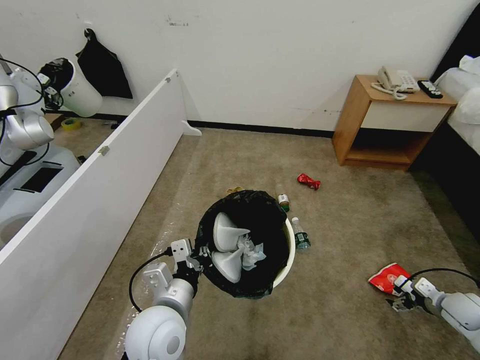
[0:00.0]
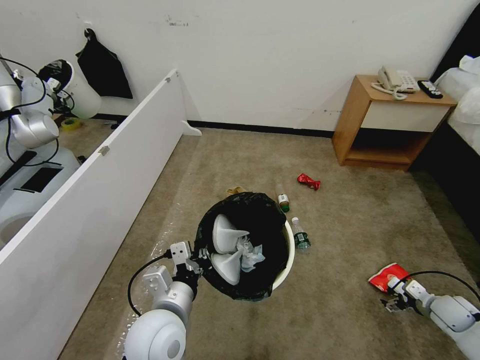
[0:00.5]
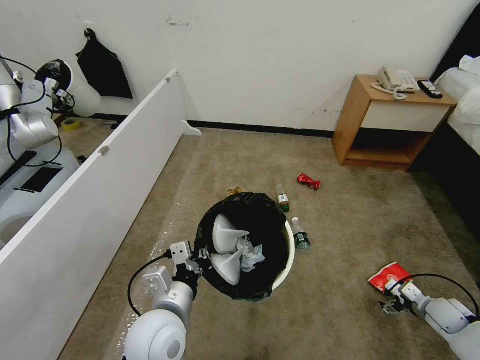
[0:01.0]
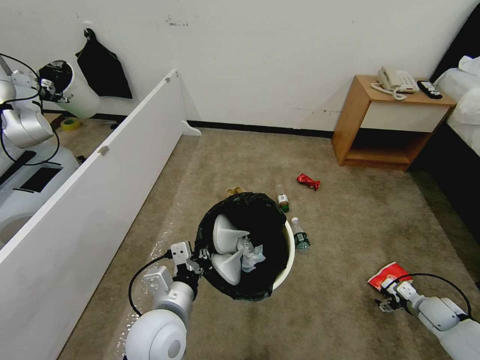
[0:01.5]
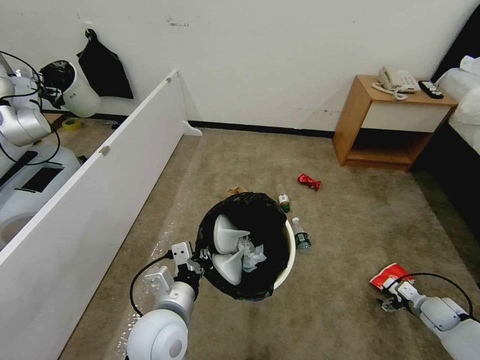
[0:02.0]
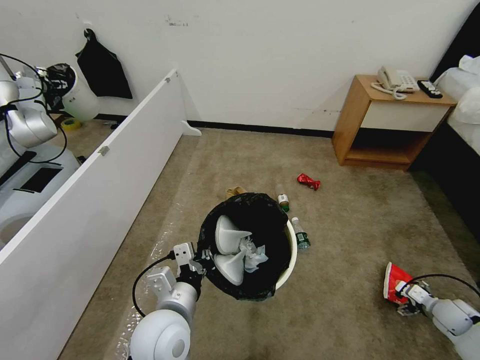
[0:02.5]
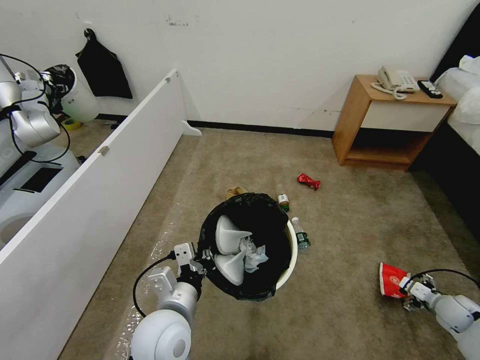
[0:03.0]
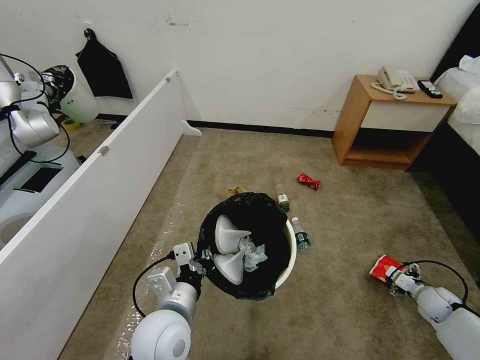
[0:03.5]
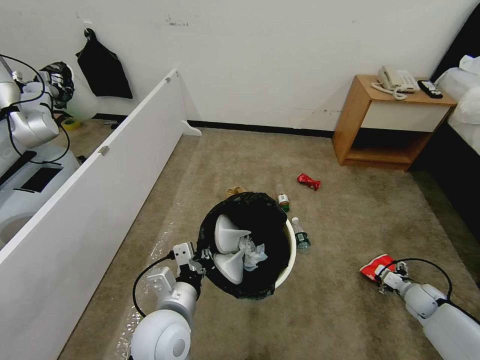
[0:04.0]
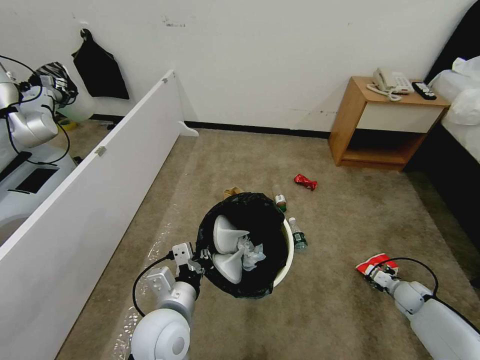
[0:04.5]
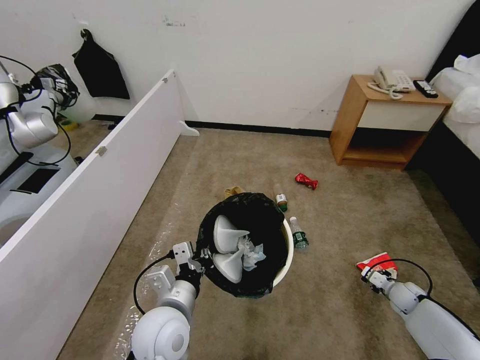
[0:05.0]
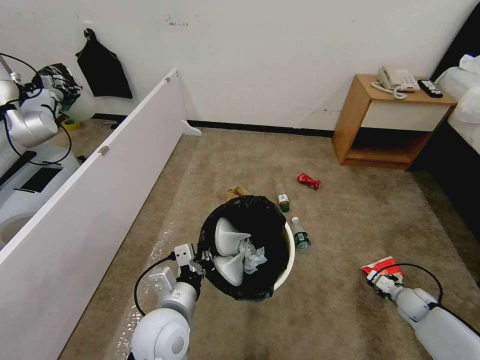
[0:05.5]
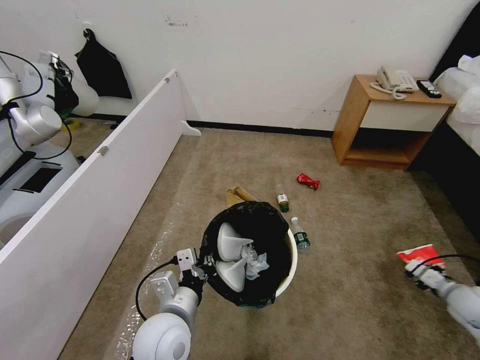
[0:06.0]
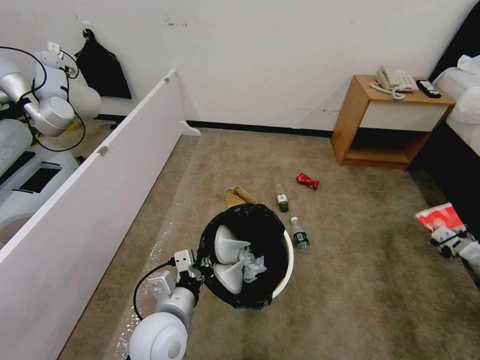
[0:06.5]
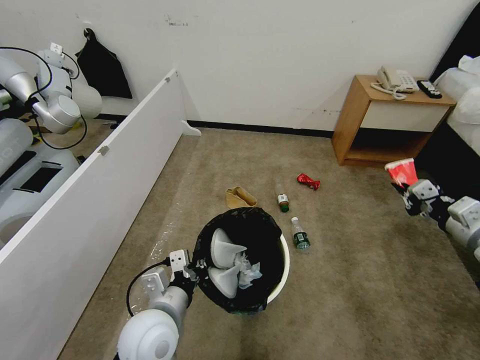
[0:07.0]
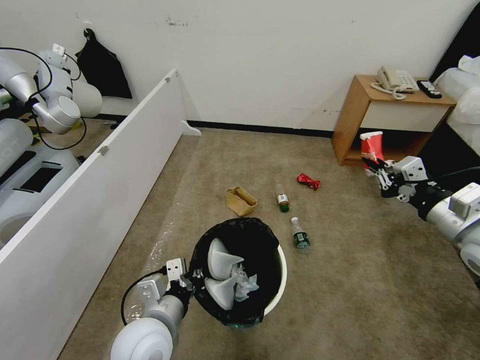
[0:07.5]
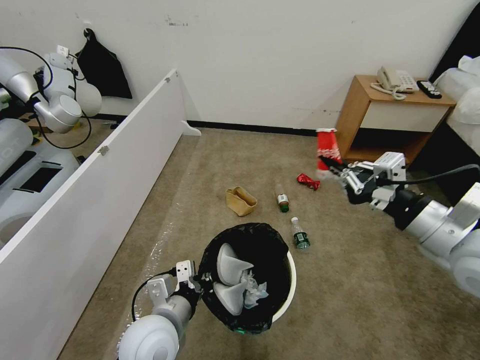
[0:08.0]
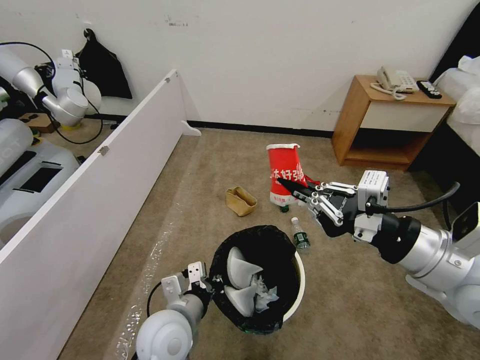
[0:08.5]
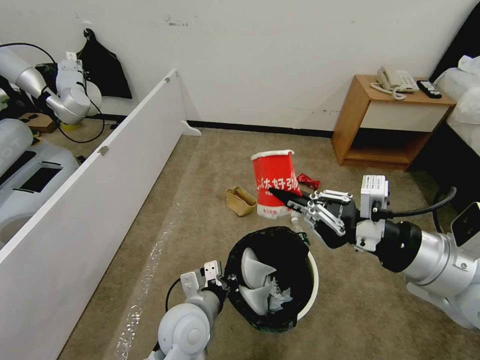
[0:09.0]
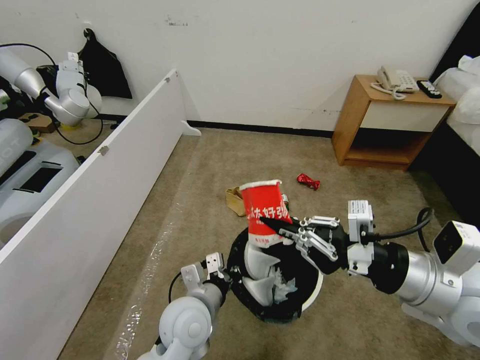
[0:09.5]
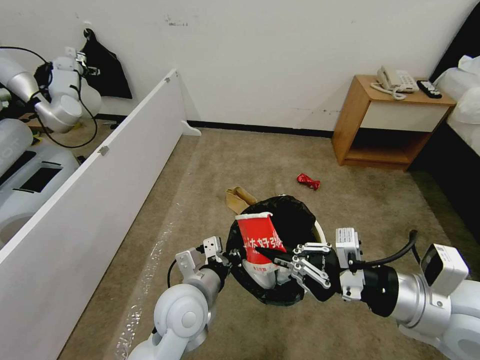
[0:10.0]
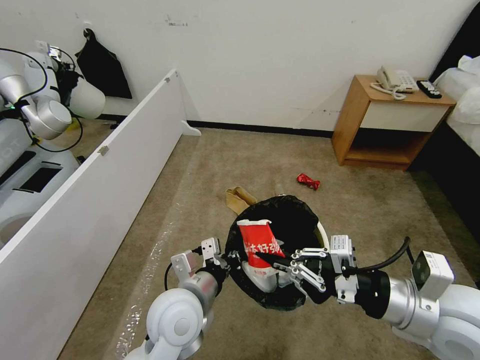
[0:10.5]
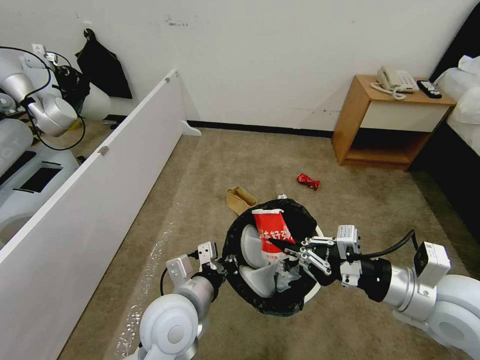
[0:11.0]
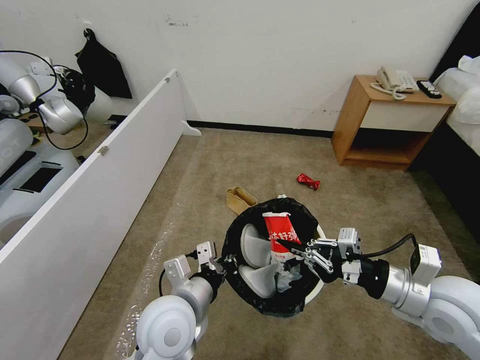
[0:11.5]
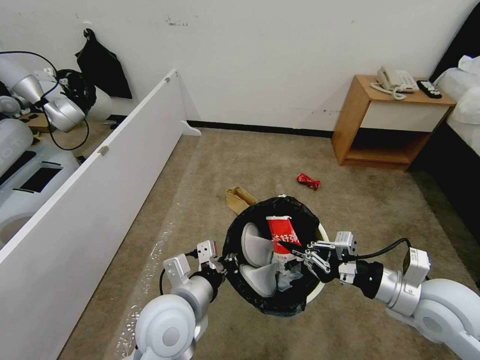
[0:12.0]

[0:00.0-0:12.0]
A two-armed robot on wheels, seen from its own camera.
Task of the whole recording: Pick up the trash bin, then pick up the garbage from the floor and place it into the trash bin.
0:00.0 to 0:02.0: The right gripper goes roughly 5 cm downward.
0:02.0 to 0:04.0: The grippers stay close to where they were, moving slightly.
0:04.0 to 0:06.0: The right gripper goes approximately 10 cm upward, and closes its fingers.
0:06.0 to 0:08.0: The right gripper is displaced upward and to the left by some 40 cm.
0:08.0 to 0:10.0: The left gripper moves to the right and forward, some 5 cm. The right gripper goes about 5 cm backward.
0:10.0 to 0:12.0: The right gripper goes about 10 cm downward.

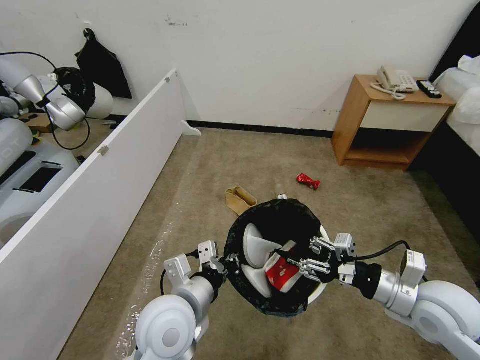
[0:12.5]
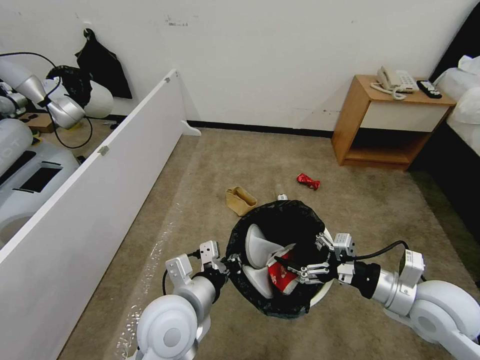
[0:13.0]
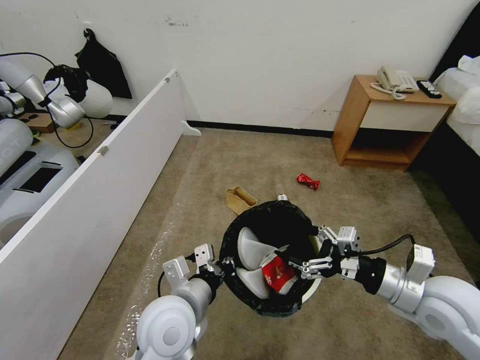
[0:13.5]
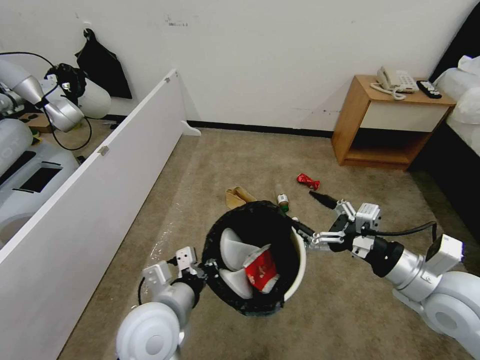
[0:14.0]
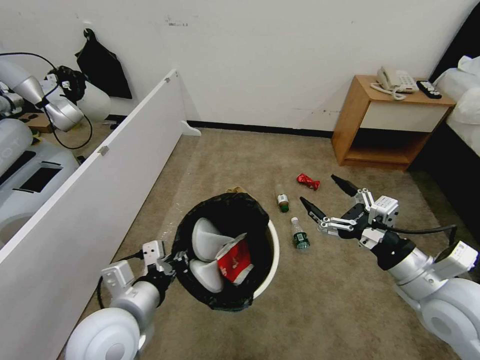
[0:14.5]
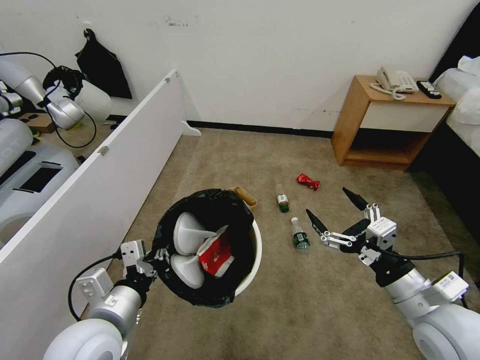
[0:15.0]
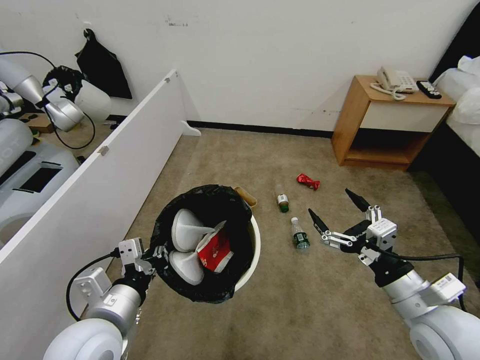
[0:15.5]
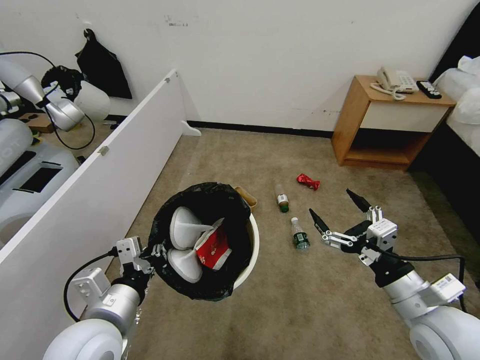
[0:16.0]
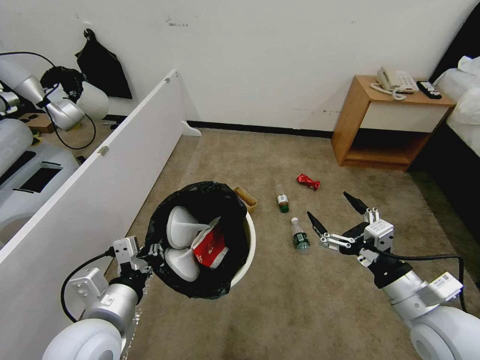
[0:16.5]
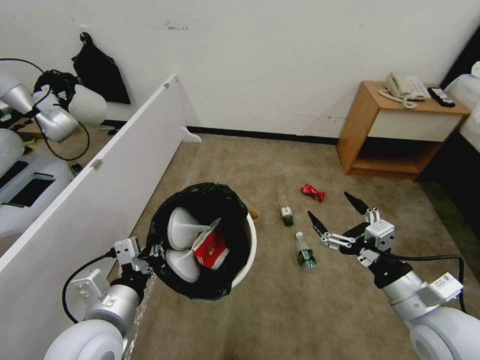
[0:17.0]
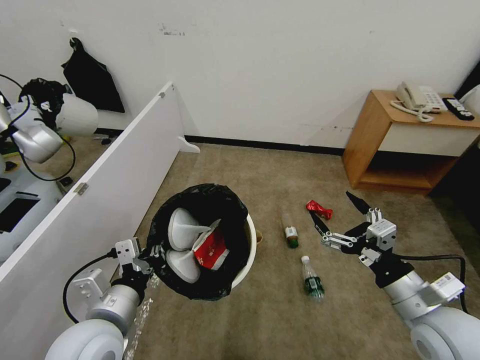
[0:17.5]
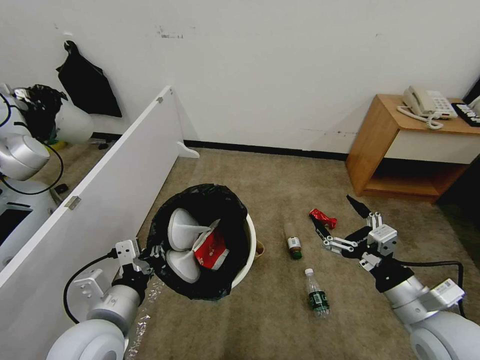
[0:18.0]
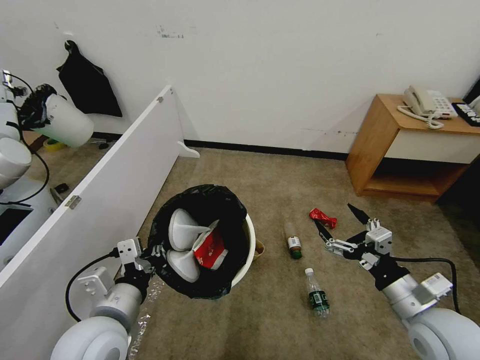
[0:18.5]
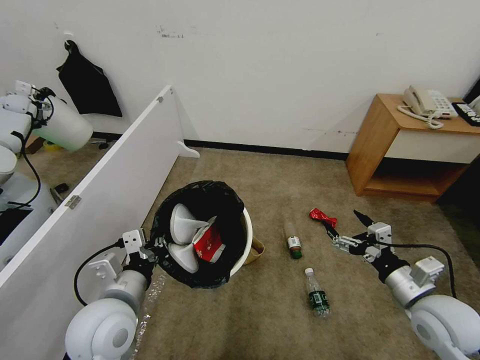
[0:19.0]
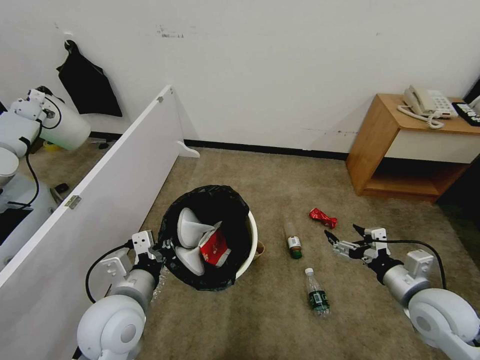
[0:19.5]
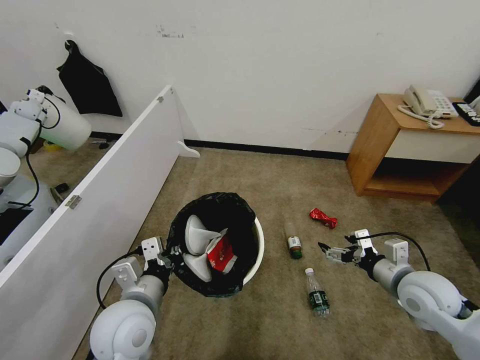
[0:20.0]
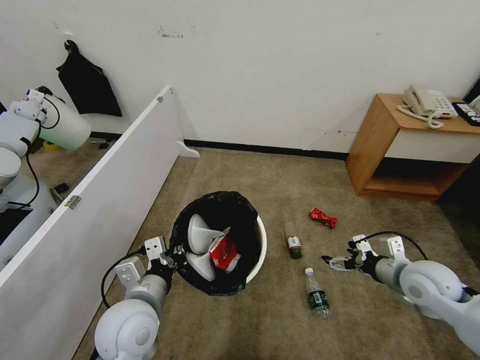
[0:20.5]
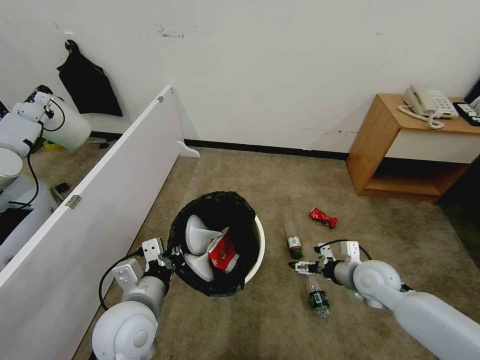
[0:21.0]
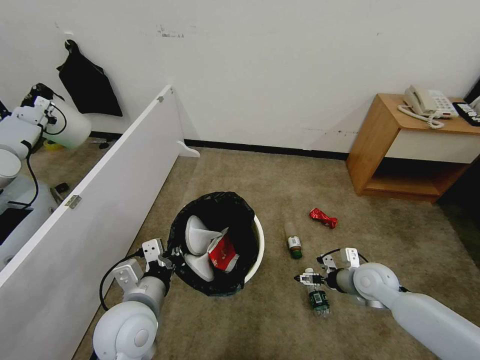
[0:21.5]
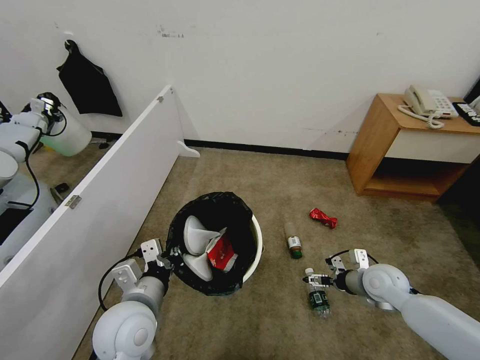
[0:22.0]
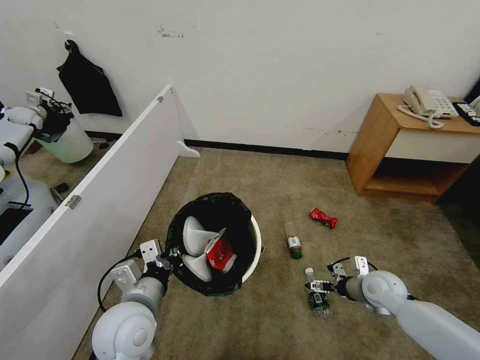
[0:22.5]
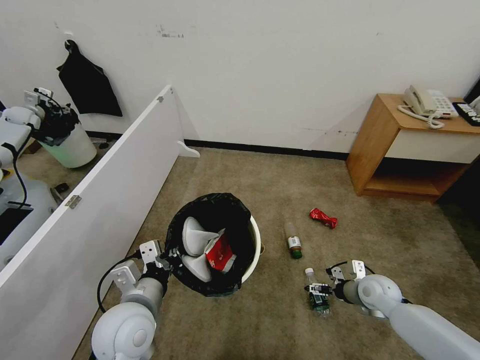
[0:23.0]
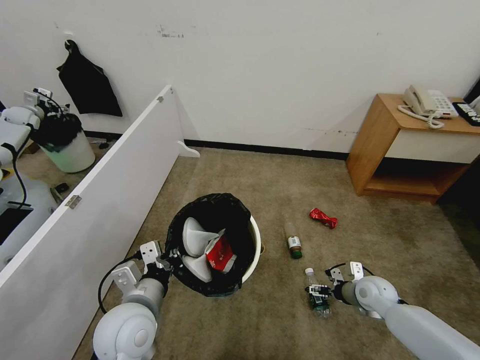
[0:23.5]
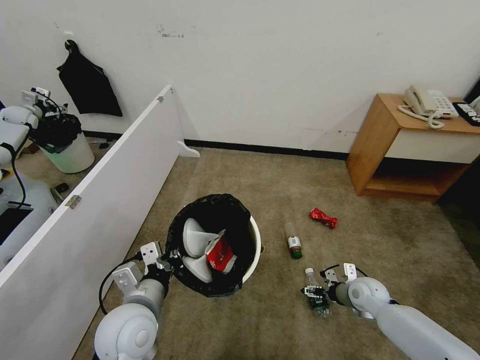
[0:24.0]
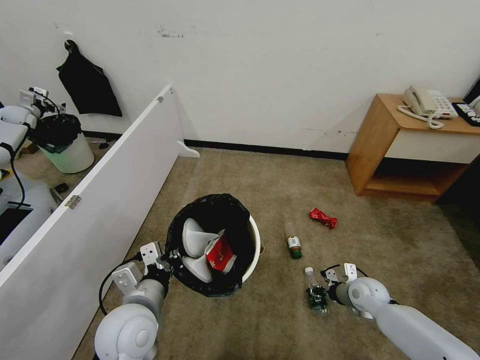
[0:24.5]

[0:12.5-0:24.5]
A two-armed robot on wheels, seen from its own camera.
Task of the whole recording: Pick up the trash bin, then pick up the garbage from the floor and place it into the trash bin.
0:12.5 to 0:14.5: The right gripper opens up, while the left gripper travels to the left by approximately 10 cm.
0:14.5 to 0:16.5: There are only small adjustments of the grippers.
0:18.5 to 0:20.5: The right gripper goes roughly 10 cm forward; the left gripper moves some 5 cm.
0:20.5 to 0:22.5: The right gripper goes some 10 cm downward.
0:22.5 to 0:24.5: The right gripper is displaced downward by roughly 5 cm, and closes.

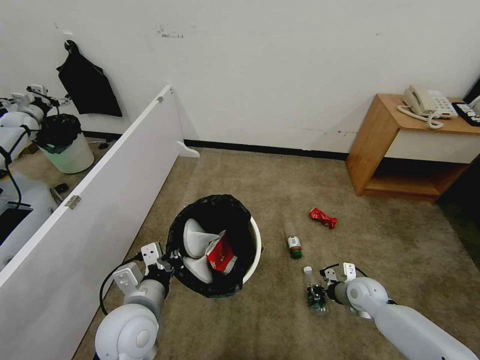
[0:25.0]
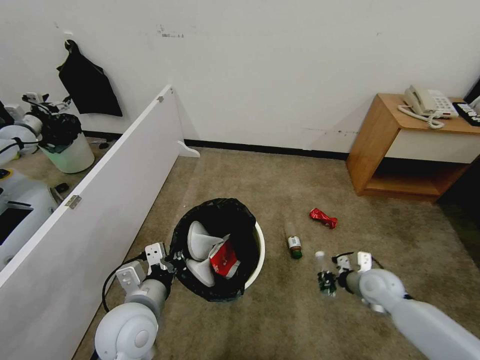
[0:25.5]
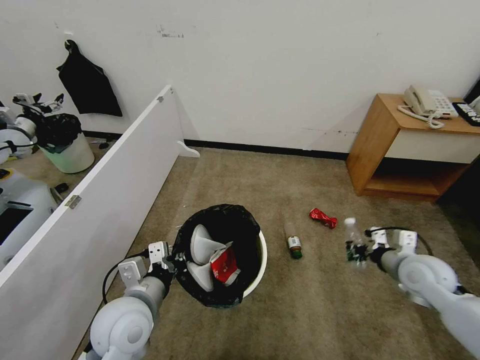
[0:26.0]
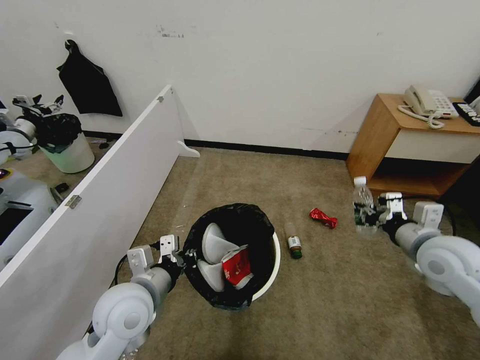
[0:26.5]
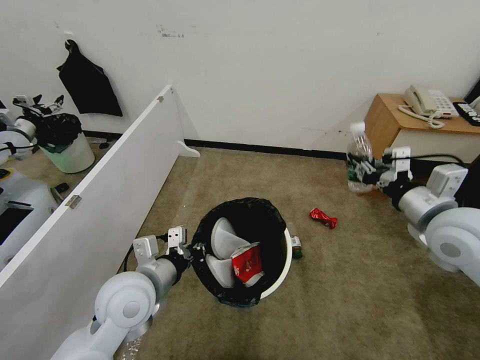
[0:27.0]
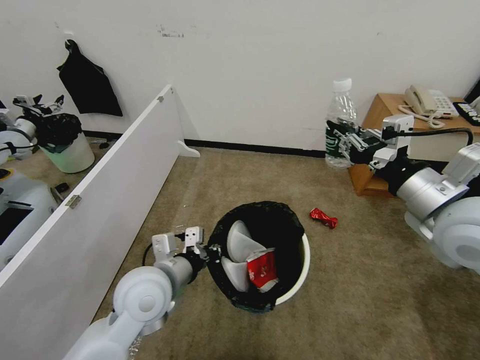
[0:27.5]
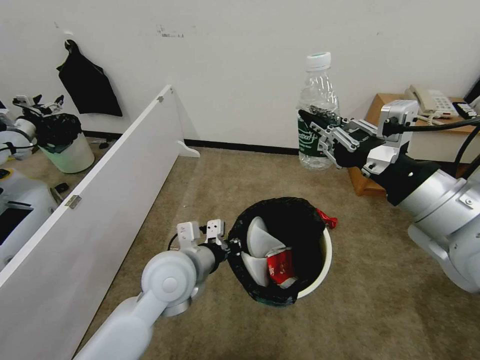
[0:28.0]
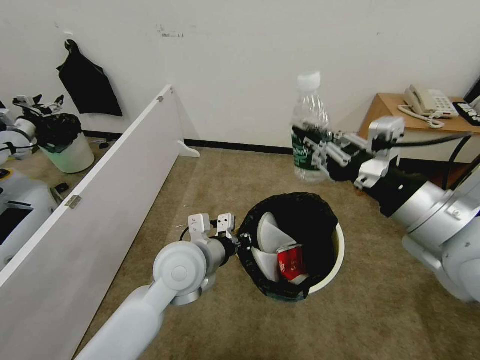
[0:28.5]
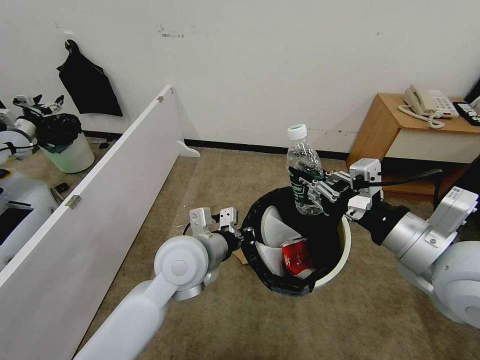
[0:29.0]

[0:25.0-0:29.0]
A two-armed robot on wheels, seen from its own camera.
Task of the whole recording: Pick up the trash bin, then pick up the garbage from the floor and place it into the trash bin.
0:25.0 to 0:27.0: The right gripper heads upward, covering approximately 35 cm; the left gripper ends up roughly 5 cm from where it was.
0:27.0 to 0:29.0: The right gripper shifts some 10 cm backward and to the left. The left gripper is displaced to the right and forward by roughly 10 cm.
